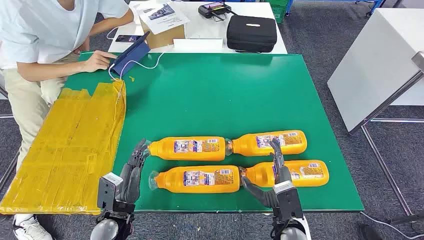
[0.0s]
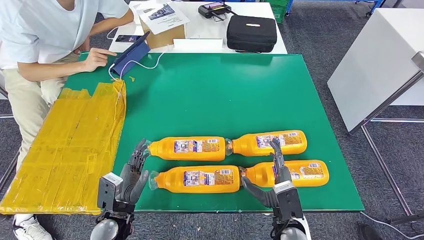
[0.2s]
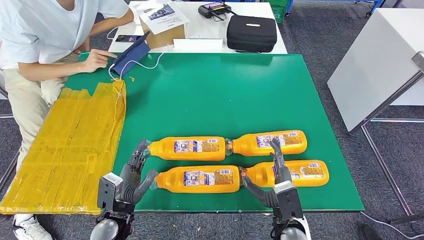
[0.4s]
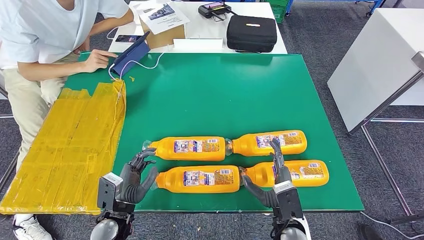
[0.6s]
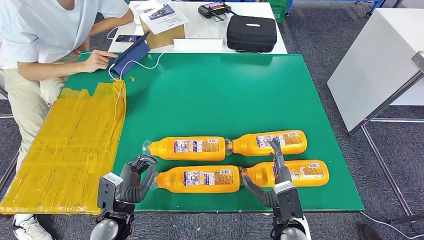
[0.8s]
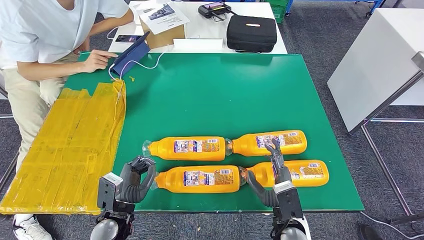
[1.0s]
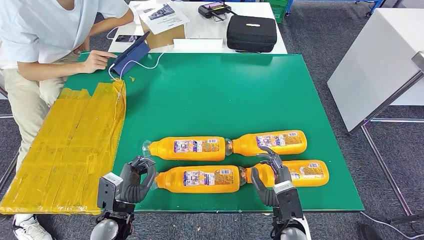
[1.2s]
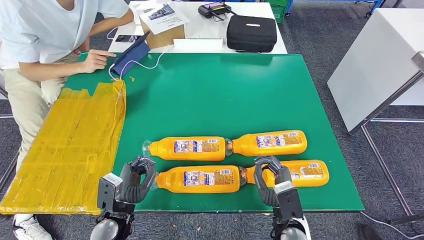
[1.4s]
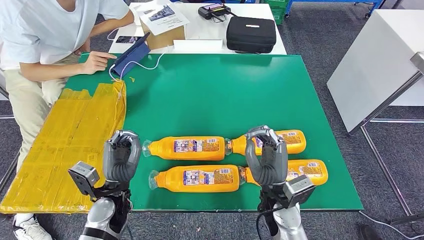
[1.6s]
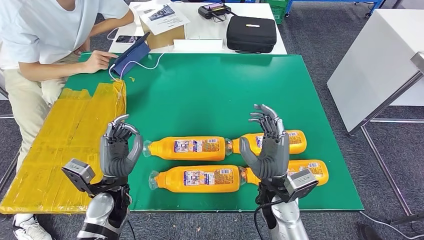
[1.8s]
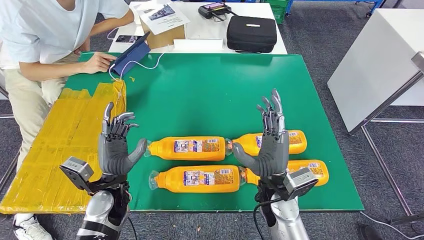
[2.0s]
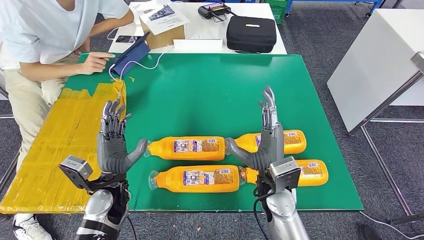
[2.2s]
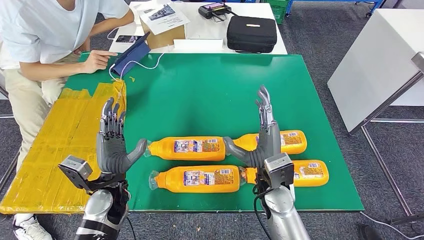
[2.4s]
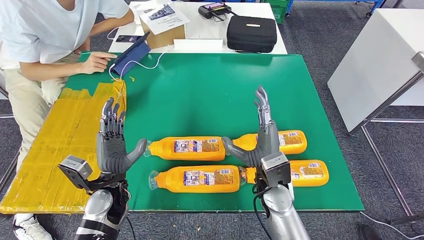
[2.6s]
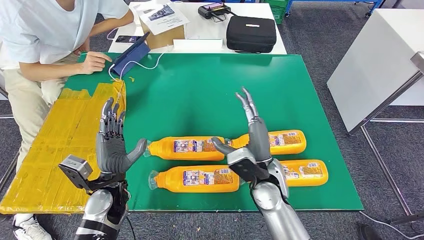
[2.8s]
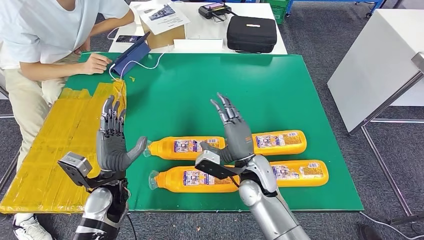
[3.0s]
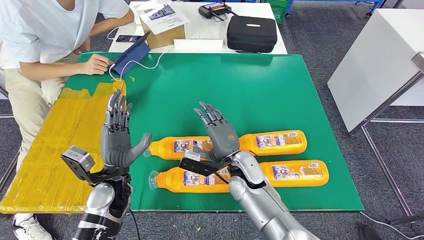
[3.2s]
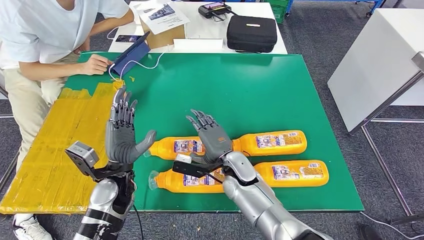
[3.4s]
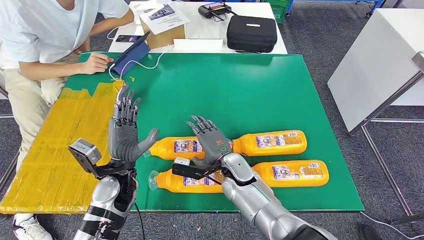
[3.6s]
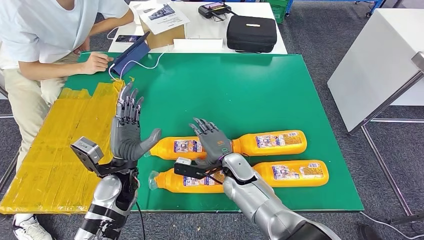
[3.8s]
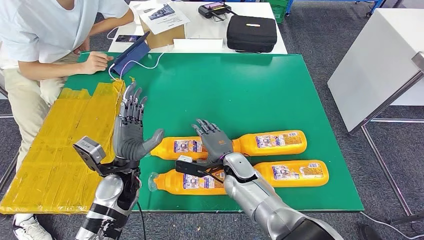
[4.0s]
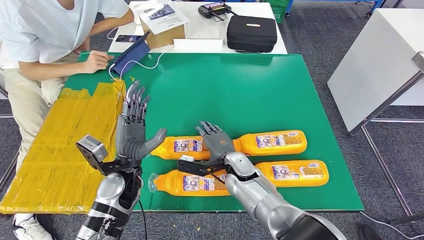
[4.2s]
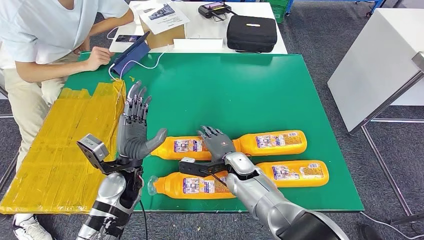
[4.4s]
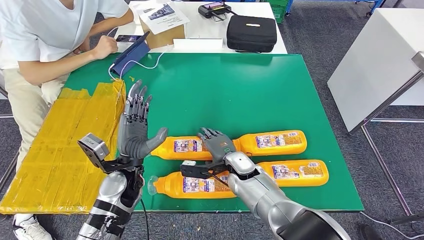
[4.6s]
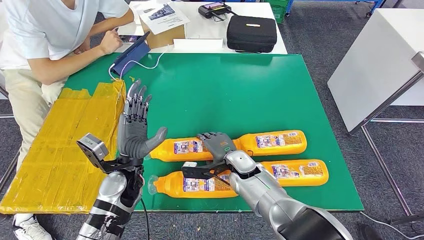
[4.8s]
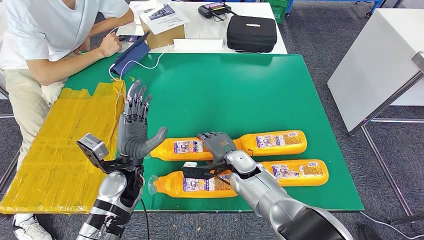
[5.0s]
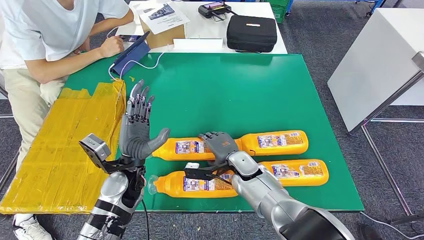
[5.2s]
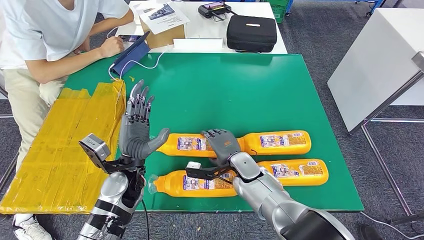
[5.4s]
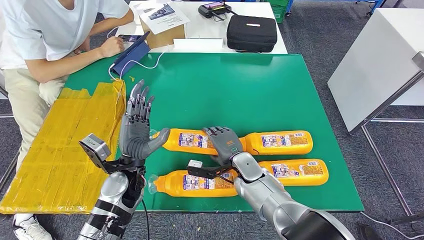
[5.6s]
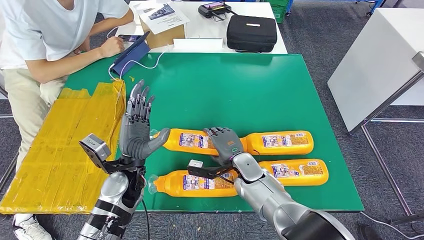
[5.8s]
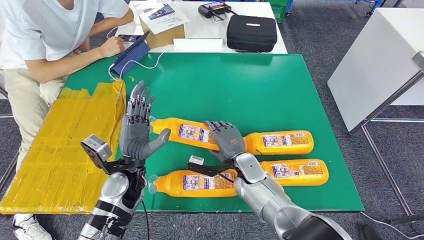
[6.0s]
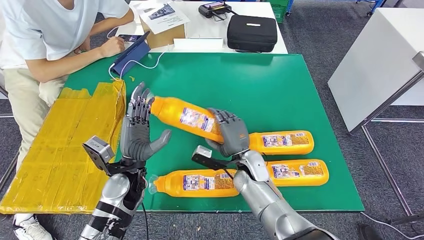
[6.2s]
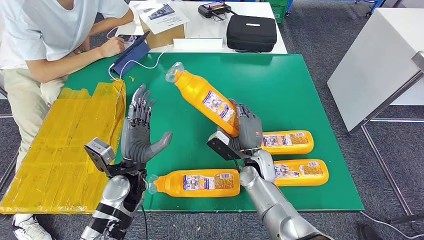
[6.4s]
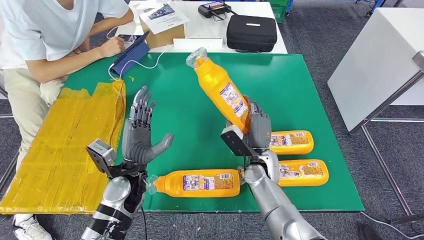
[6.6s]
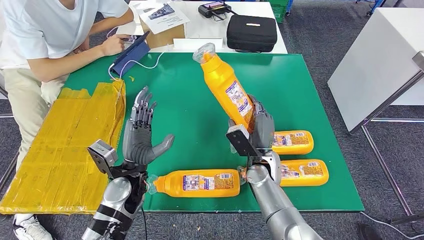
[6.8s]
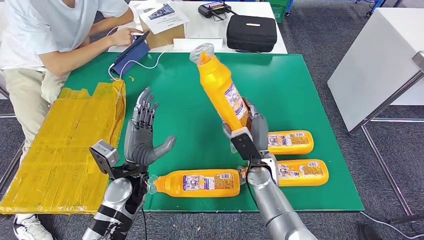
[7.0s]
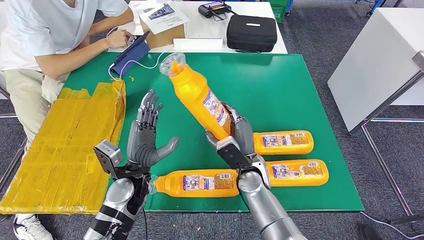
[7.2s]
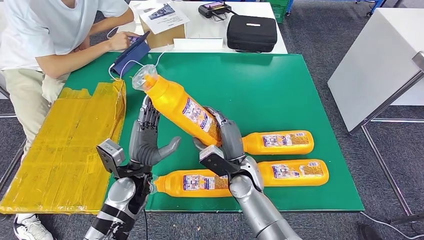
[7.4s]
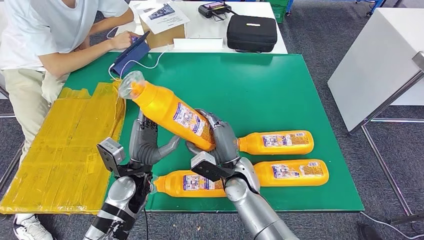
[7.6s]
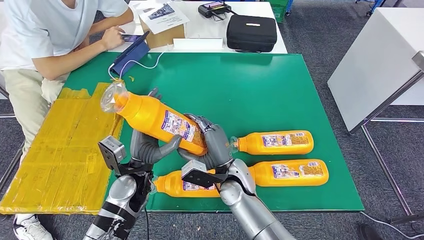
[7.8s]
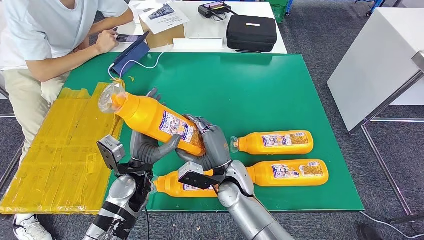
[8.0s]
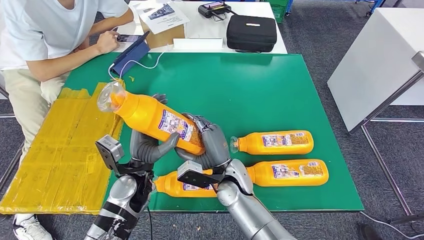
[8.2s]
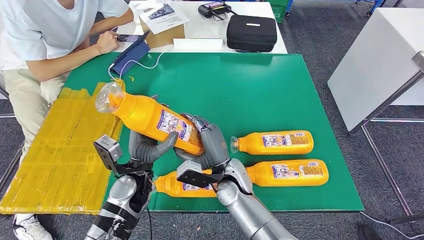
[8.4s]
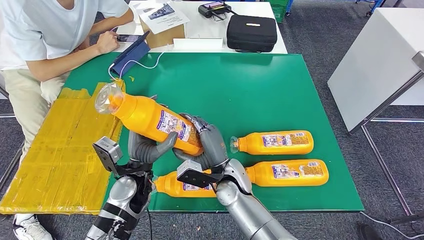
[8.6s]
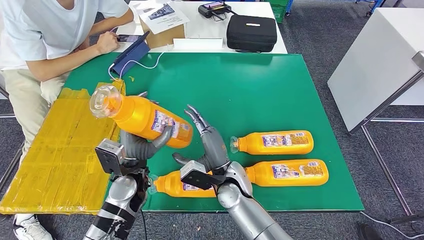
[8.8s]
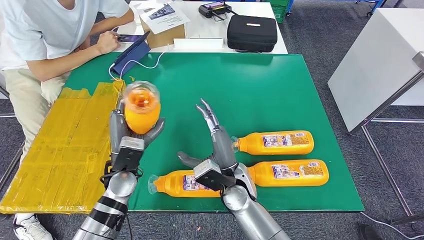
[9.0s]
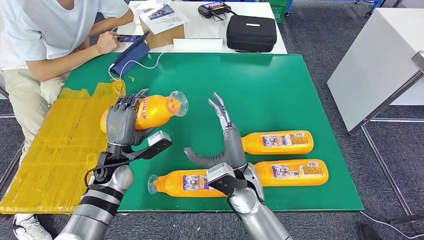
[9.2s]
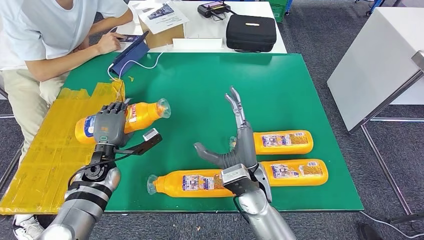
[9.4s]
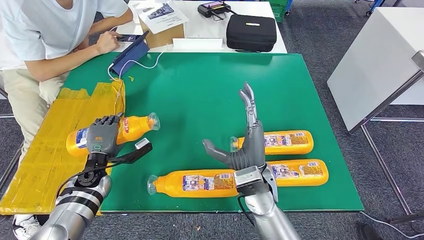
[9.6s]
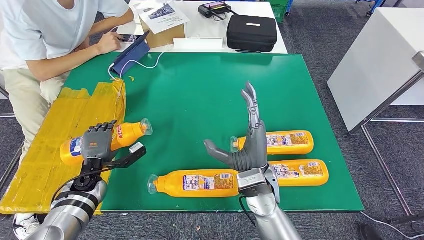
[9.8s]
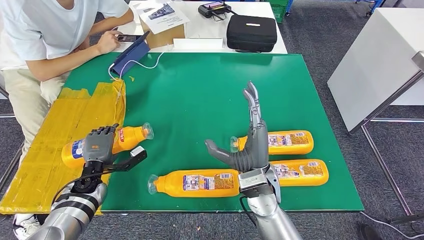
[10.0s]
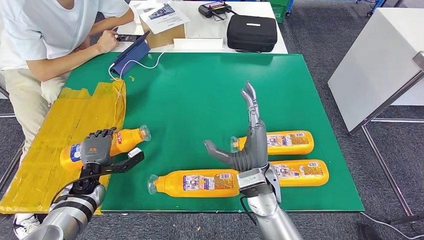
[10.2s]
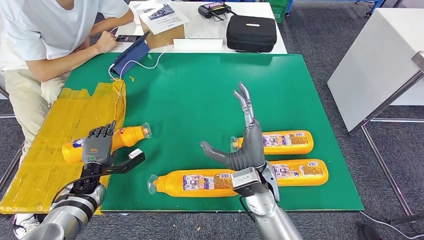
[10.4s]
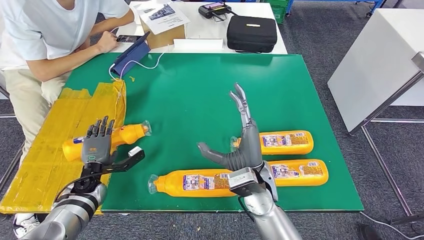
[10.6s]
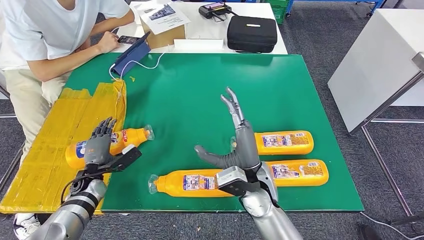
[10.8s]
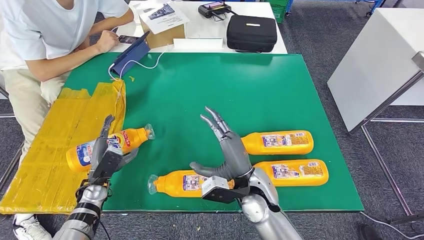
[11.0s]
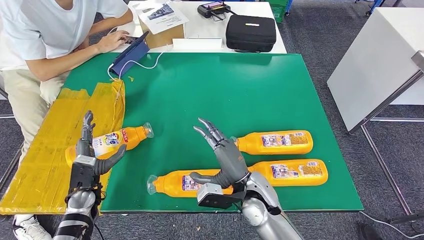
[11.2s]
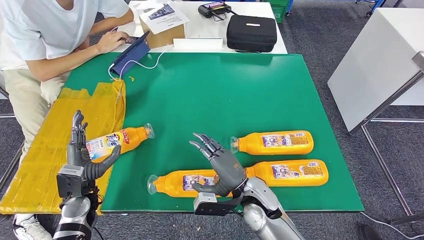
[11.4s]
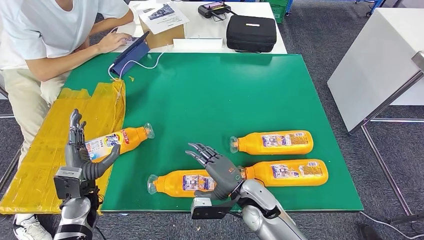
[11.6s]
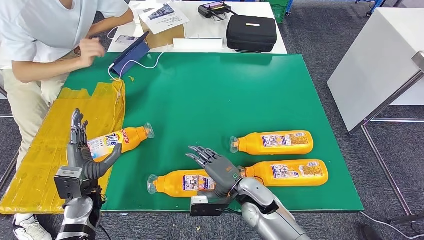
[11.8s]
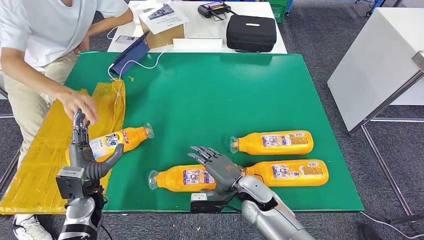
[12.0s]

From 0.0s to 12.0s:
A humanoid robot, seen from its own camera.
Step, from 0.0s to 7.6s: Take the bottle from the table.
From 1.6s to 3.0s: The right hand travels forward by approximately 5 cm.
From 3.0s to 4.4s: The right hand shifts approximately 5 cm downward. The left hand moves roughly 5 cm.
From 6.0s to 7.6s: The right hand shifts by roughly 5 cm.
From 9.0s to 10.4s: The right hand changes place by approximately 5 cm, while the left hand is displaced to the left and downward by approximately 20 cm.
From 10.4s to 12.0s: The right hand travels downward by approximately 10 cm. Meanwhile the left hand heads backward and upward, covering roughly 10 cm.

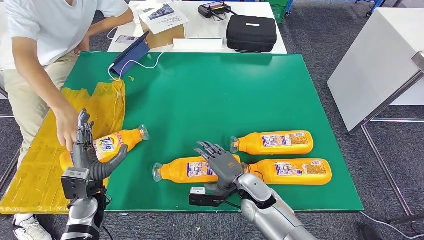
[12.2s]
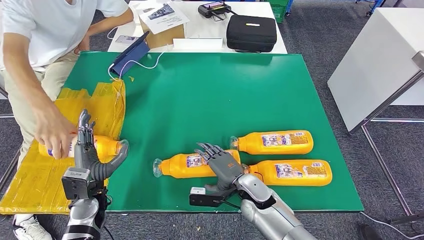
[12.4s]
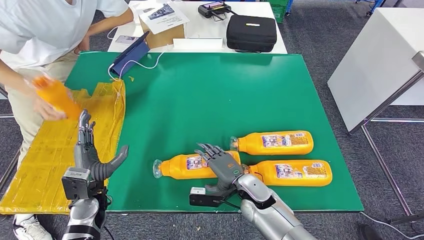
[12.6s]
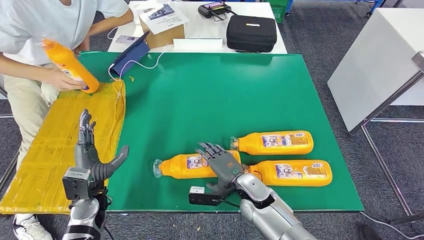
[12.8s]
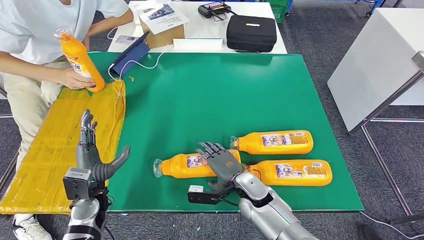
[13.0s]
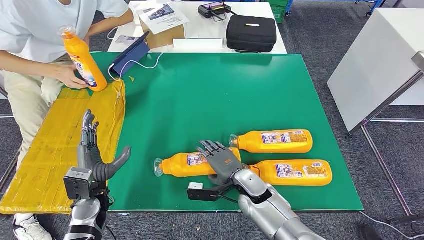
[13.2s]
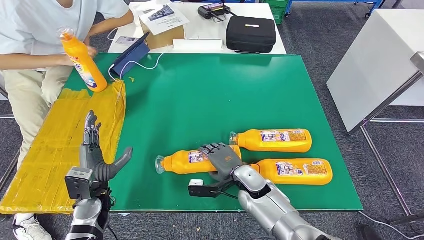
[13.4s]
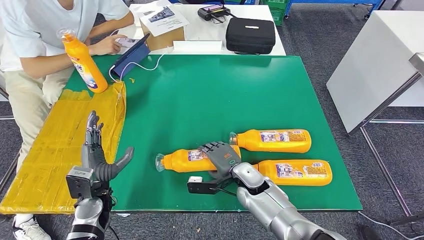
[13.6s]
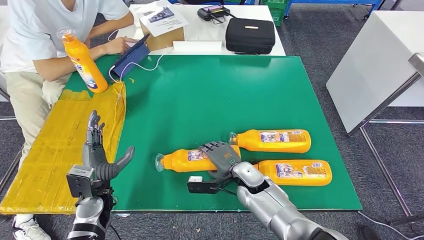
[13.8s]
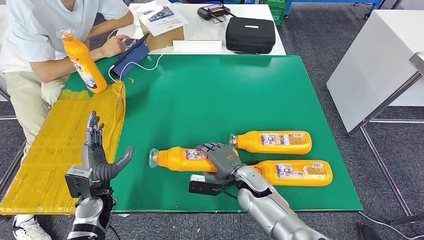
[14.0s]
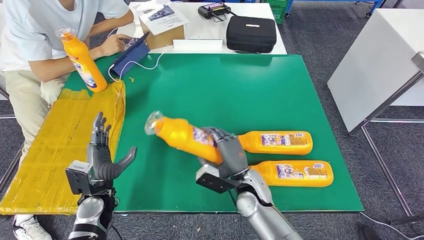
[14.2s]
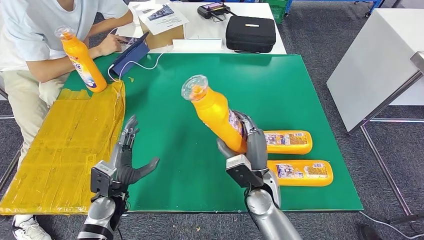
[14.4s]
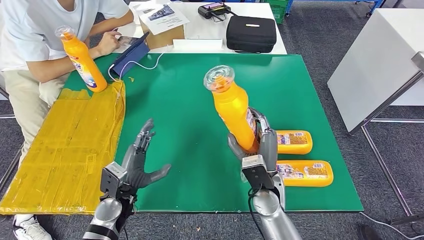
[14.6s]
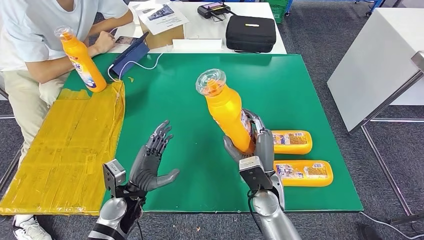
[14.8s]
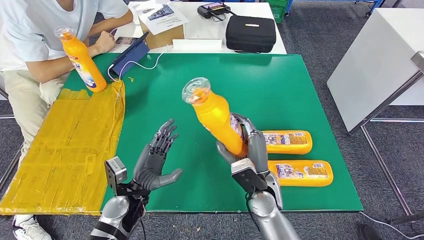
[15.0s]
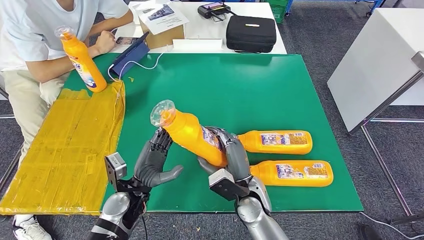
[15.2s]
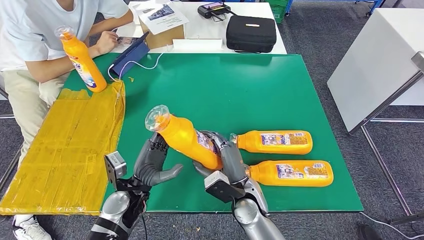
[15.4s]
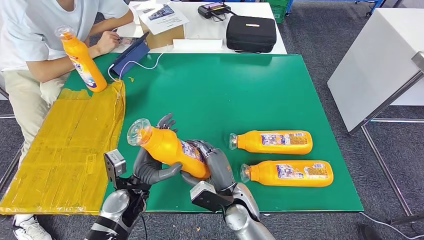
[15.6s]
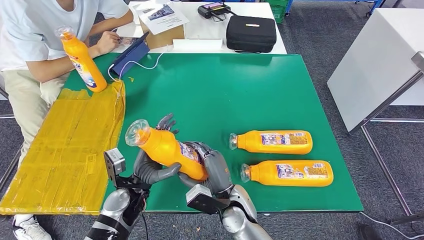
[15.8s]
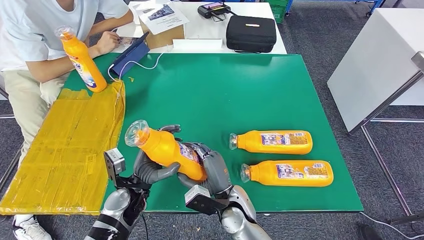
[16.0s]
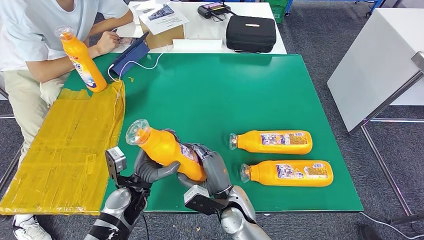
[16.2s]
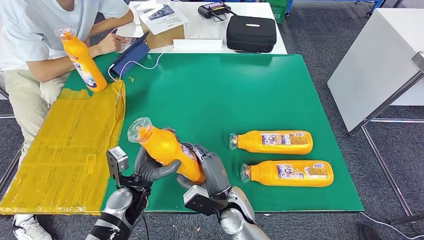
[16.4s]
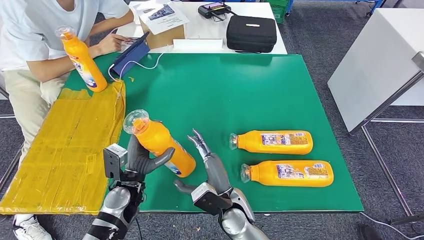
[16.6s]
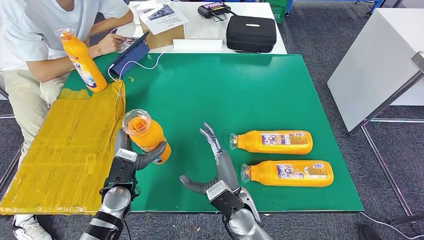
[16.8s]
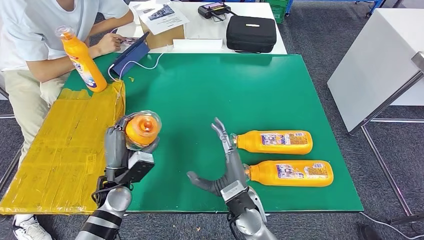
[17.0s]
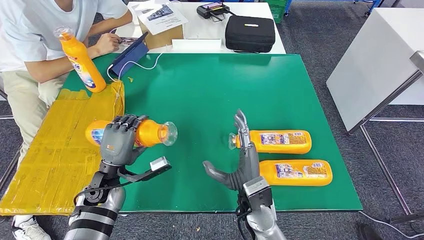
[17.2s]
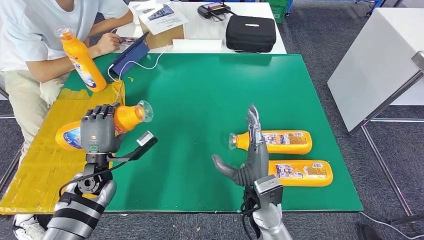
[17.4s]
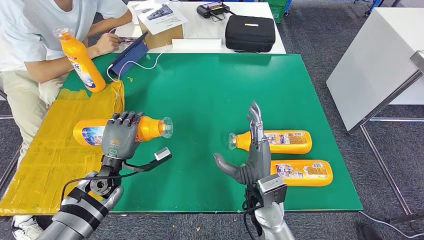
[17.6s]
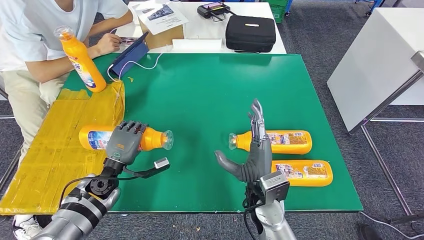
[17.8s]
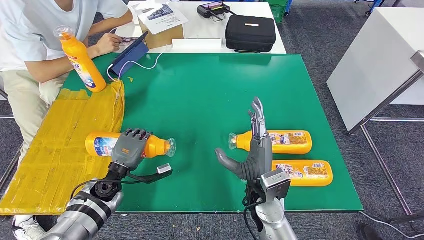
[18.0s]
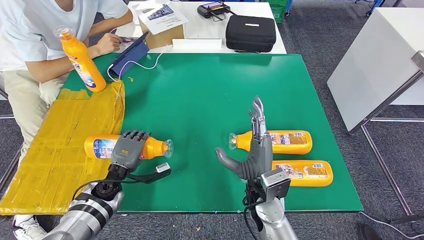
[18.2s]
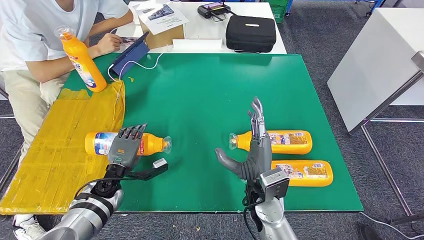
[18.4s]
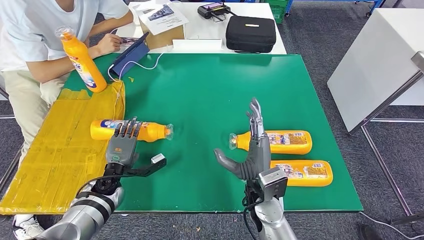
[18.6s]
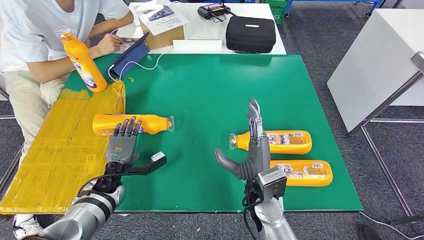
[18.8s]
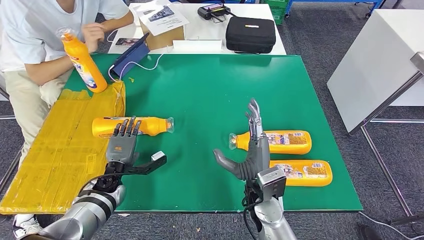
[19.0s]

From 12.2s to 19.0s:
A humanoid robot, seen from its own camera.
Step, from 12.2s to 15.4s: Pick up the bottle from the table.
From 15.0s to 16.2s: The right hand is displaced to the left by roughly 5 cm.
From 16.2s to 17.6s: The left hand moves to the left, some 5 cm. Meanwhile the right hand travels to the right and upward by about 10 cm.
From 17.6s to 19.0s: The left hand heads downward, covering roughly 5 cm.
